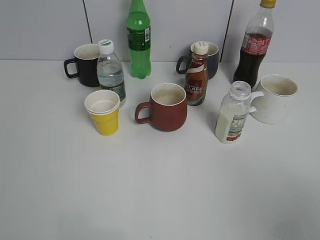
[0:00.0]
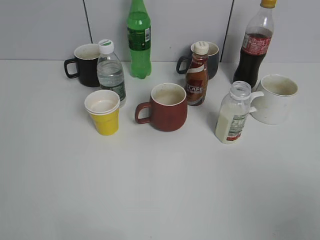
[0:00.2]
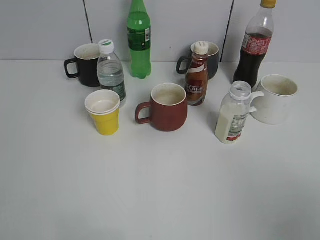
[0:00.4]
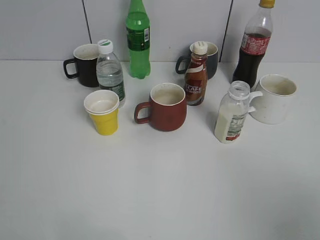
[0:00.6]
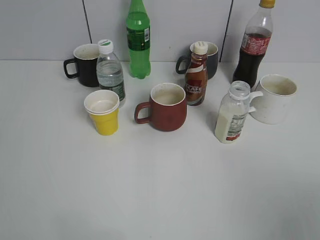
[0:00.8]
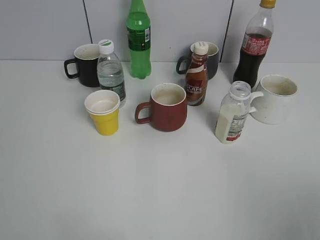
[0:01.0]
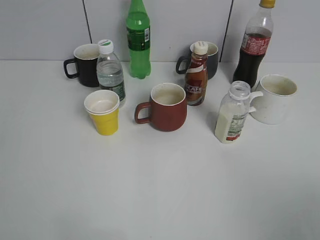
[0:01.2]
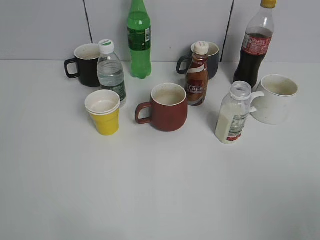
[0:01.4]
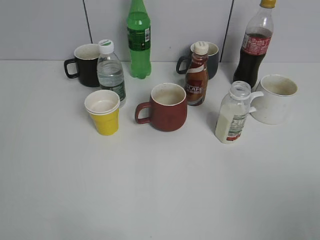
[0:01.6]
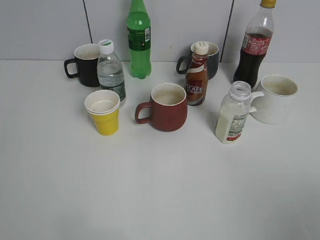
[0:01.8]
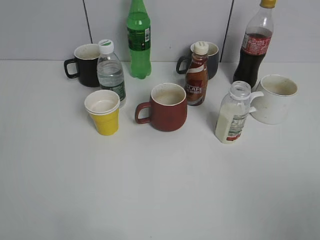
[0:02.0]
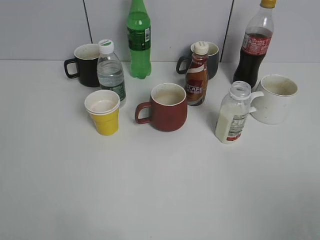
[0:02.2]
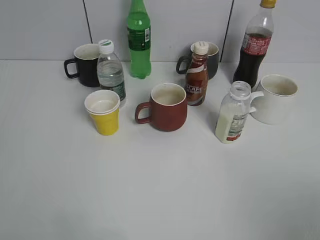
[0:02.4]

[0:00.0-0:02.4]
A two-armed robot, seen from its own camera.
0:01.2 to 0:02.4: Both grippers stay put.
